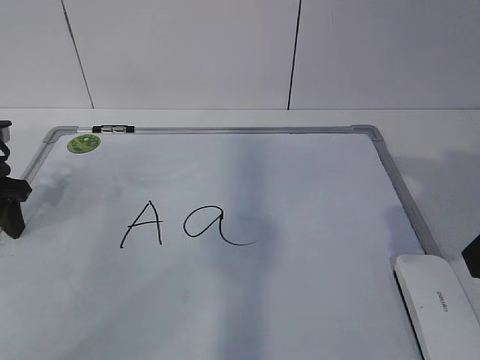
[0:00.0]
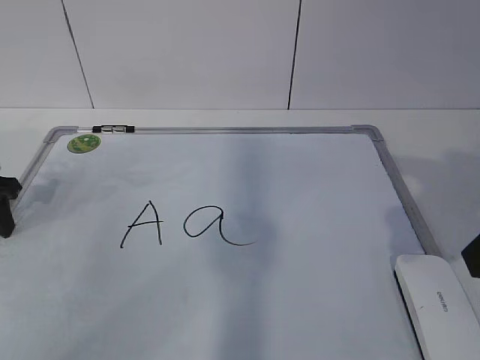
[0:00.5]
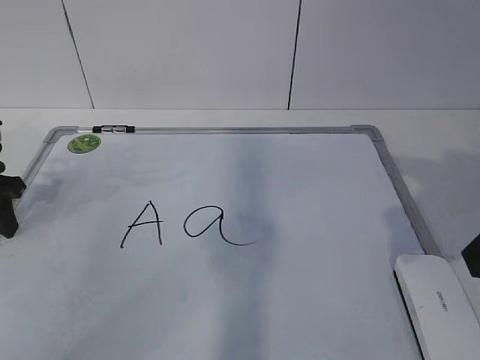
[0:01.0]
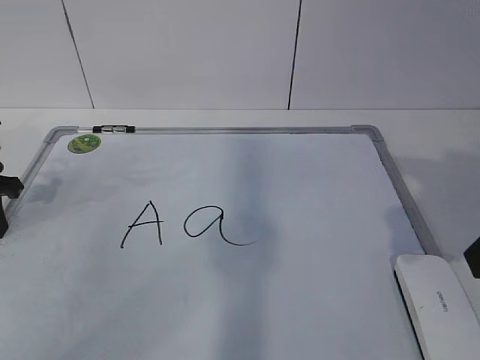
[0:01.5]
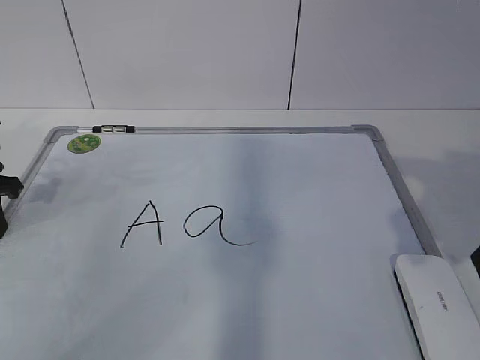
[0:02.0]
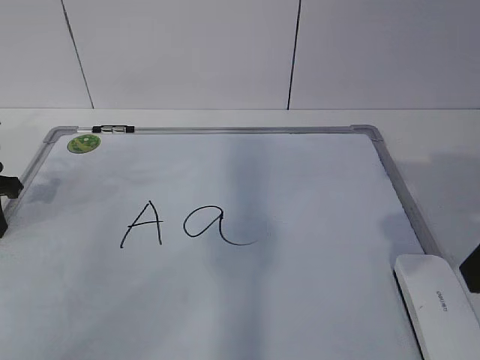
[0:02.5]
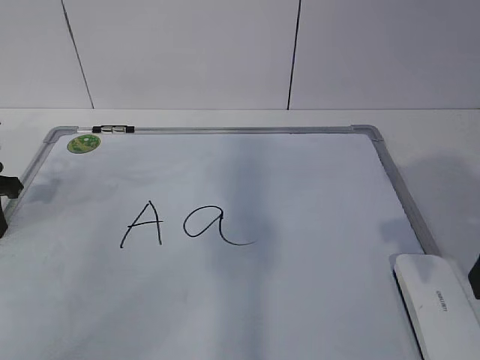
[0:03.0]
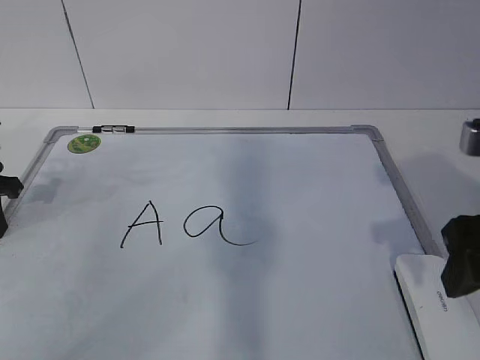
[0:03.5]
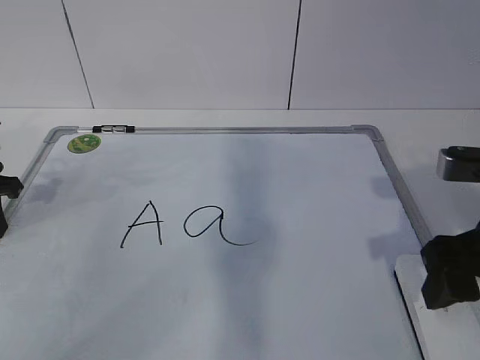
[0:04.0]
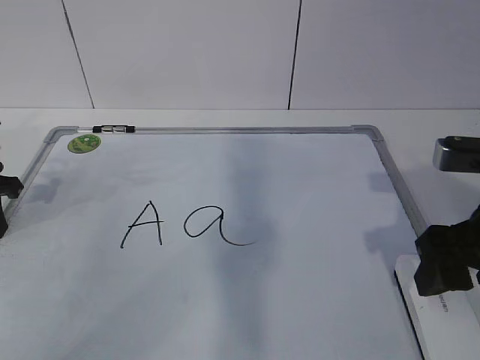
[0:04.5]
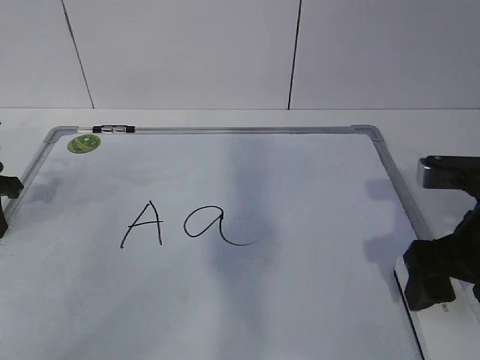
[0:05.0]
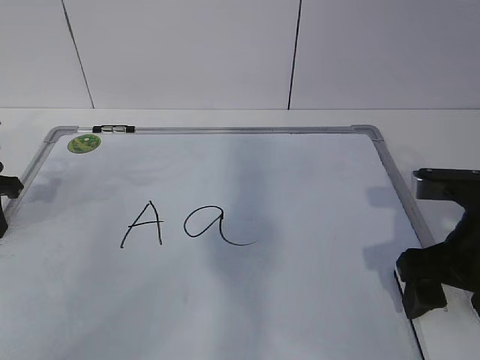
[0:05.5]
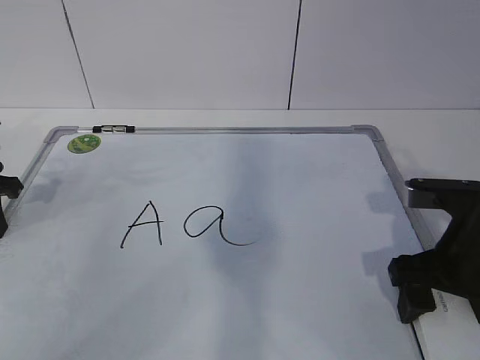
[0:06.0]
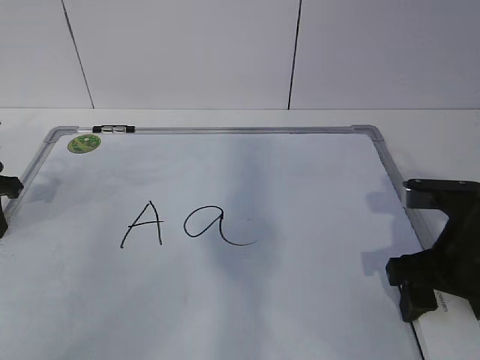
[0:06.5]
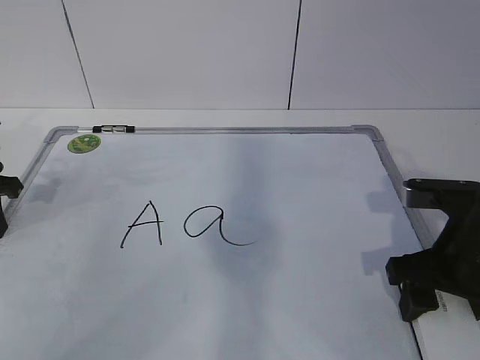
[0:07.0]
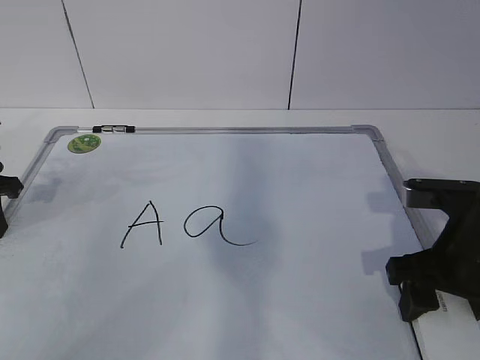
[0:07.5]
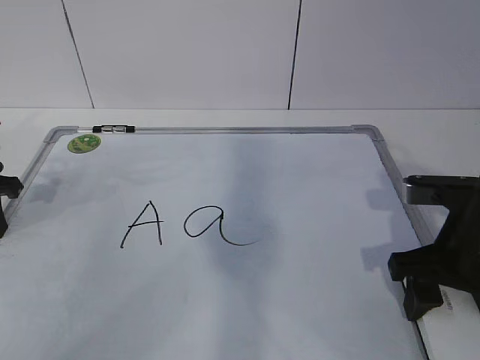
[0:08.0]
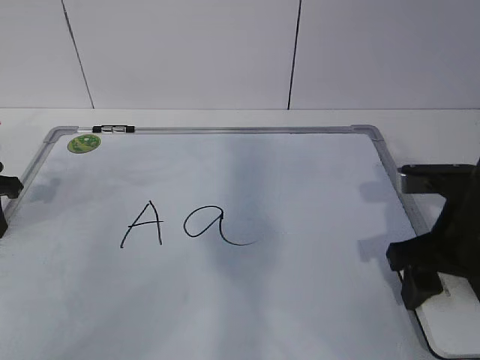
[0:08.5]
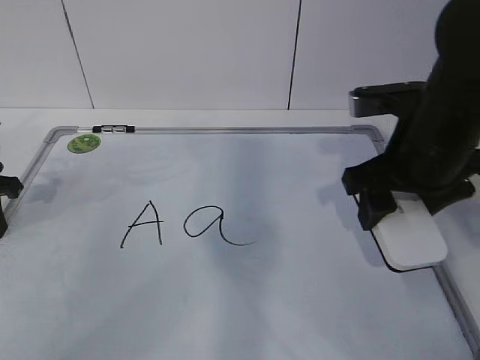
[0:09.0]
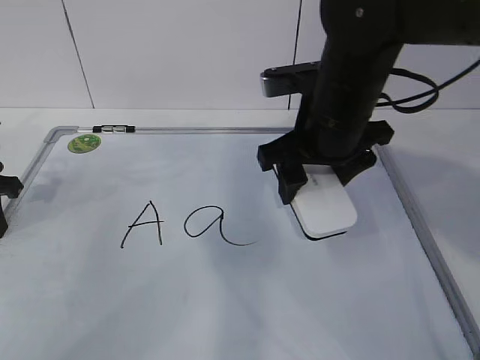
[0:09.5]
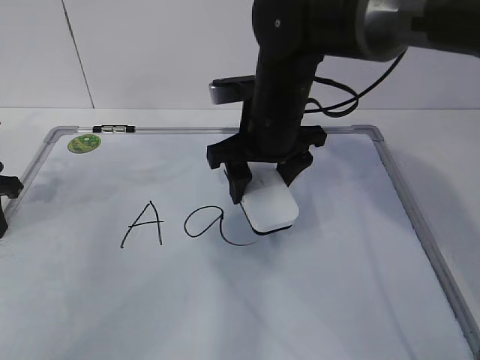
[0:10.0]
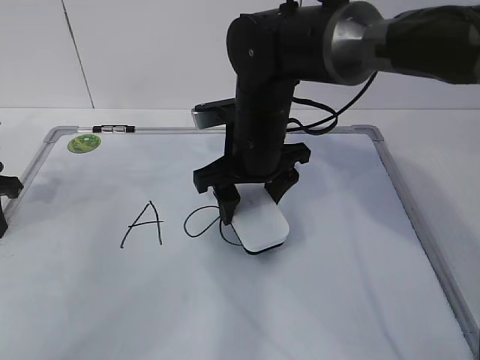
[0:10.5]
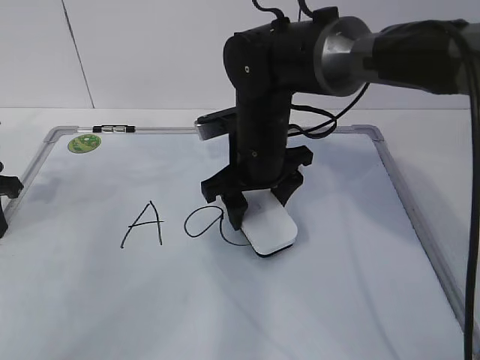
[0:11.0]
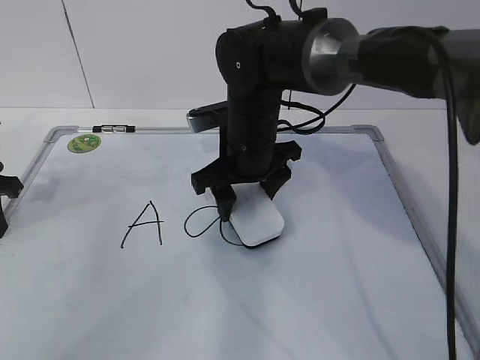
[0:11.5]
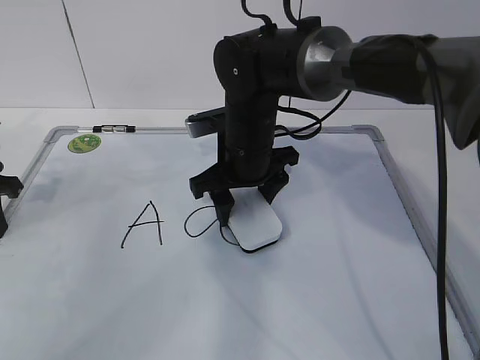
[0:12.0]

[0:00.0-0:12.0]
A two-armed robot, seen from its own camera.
Task of the whole recording: pick up the eraser on the blackboard and erase the letter "a".
Step, 0:00.5 to 0:04.5: Grab the eraser with your right hand.
0:00.0 to 0:02.0: The left gripper closes its fingers.
0:02.0 to 0:04.0: The right gripper moves downward, some 5 cm.
0:04.0 to 0:06.0: The right gripper goes roughly 5 cm downward, and opens.
0:06.0 to 0:08.0: The right gripper closes its fingers.
0:08.0 to 0:10.0: The right gripper goes about 20 cm to the left and forward.
0:10.0 to 0:12.0: The right gripper moves approximately 5 cm.

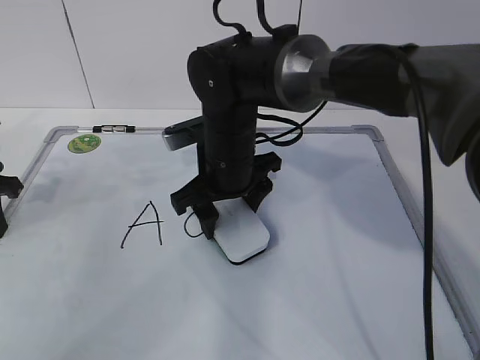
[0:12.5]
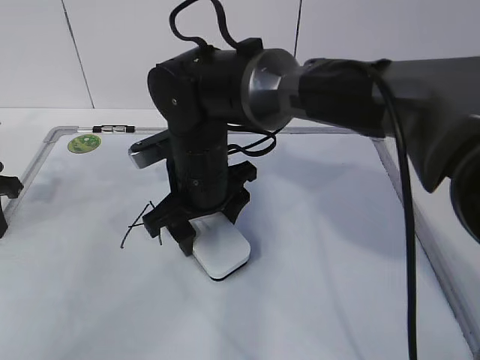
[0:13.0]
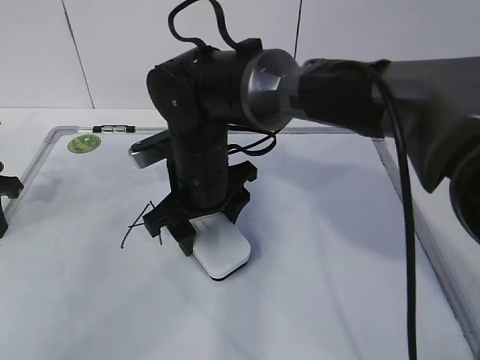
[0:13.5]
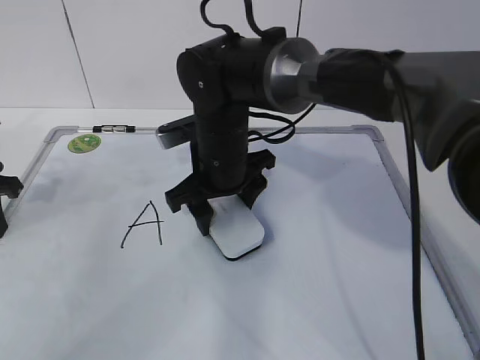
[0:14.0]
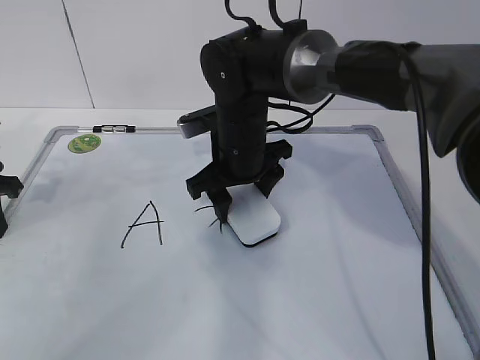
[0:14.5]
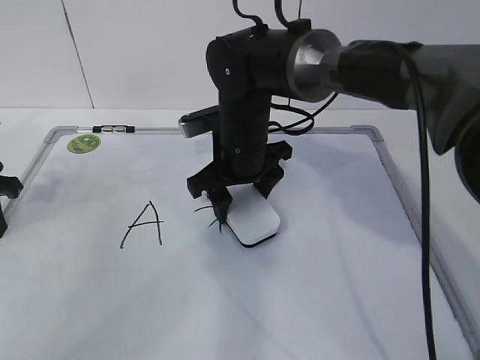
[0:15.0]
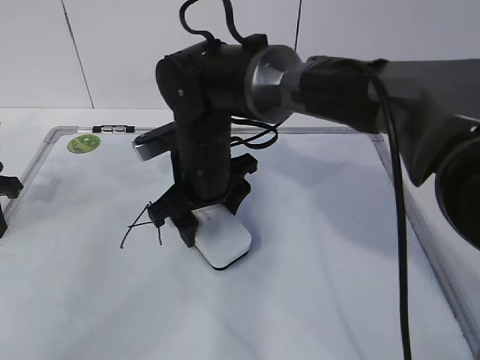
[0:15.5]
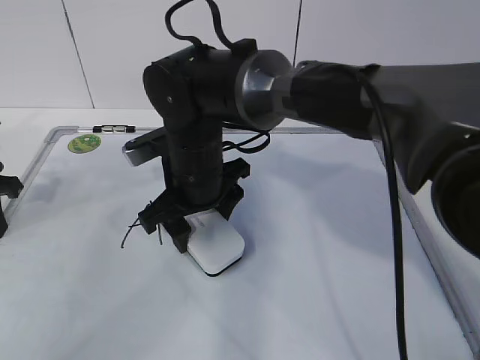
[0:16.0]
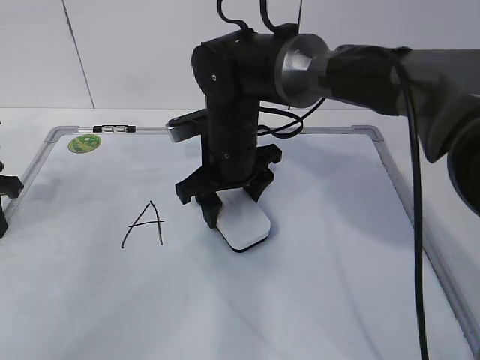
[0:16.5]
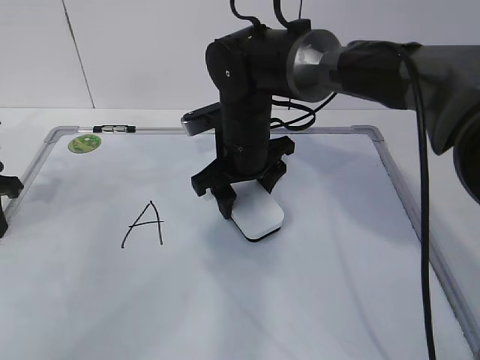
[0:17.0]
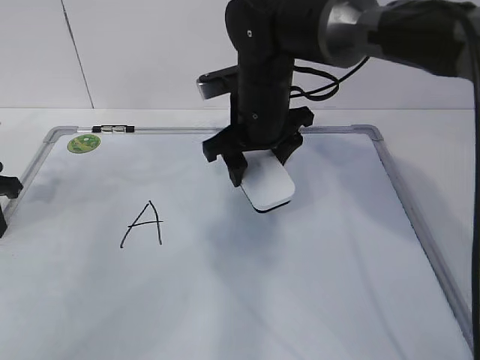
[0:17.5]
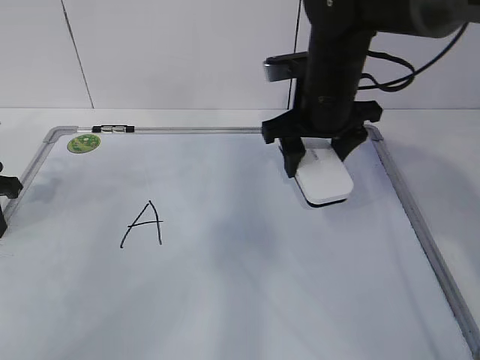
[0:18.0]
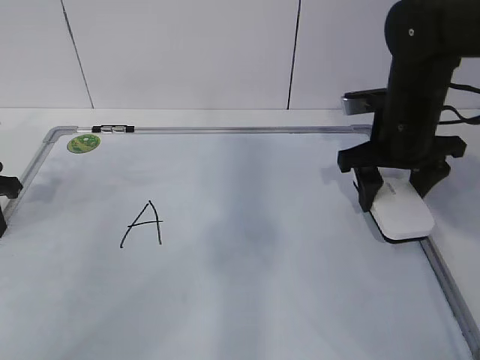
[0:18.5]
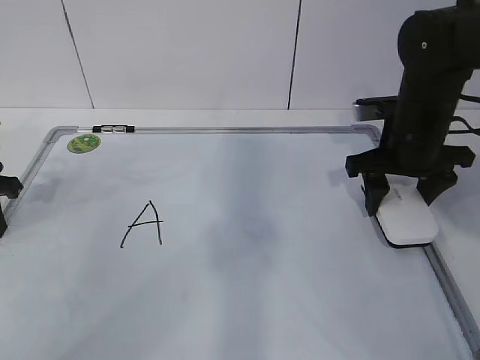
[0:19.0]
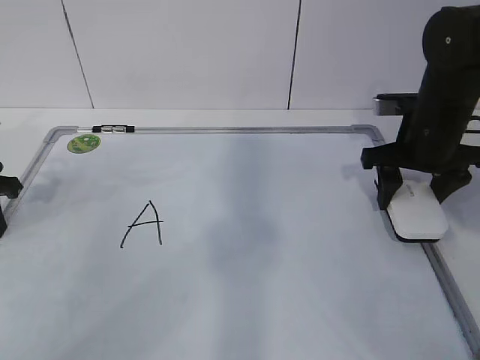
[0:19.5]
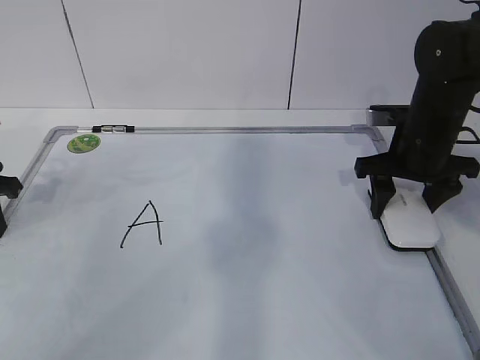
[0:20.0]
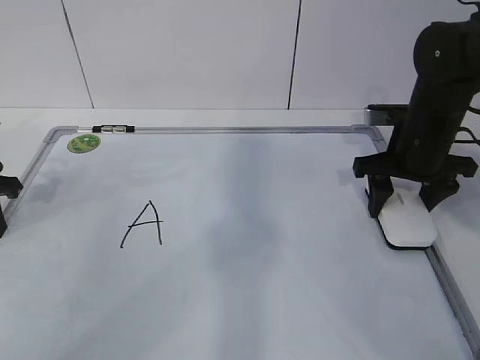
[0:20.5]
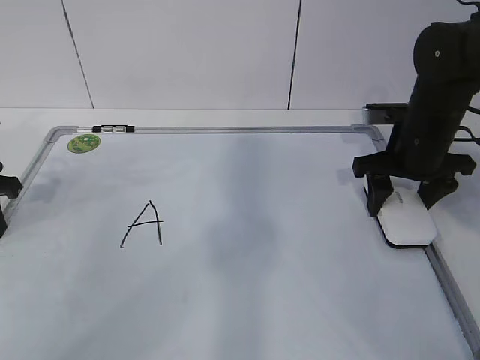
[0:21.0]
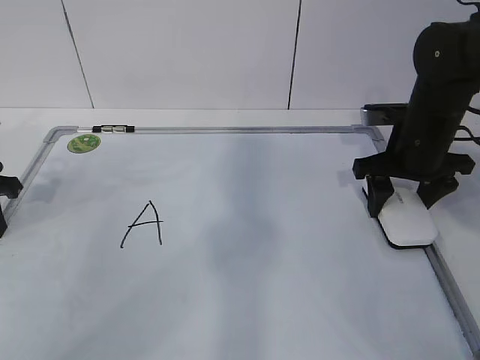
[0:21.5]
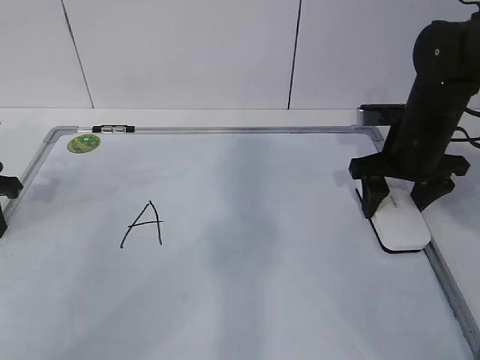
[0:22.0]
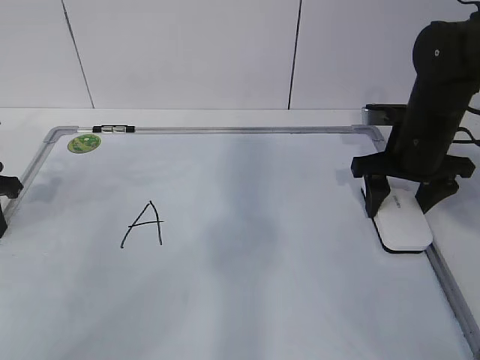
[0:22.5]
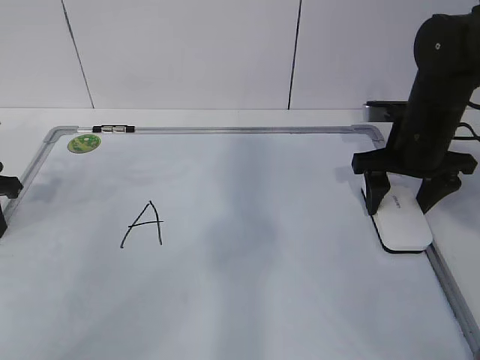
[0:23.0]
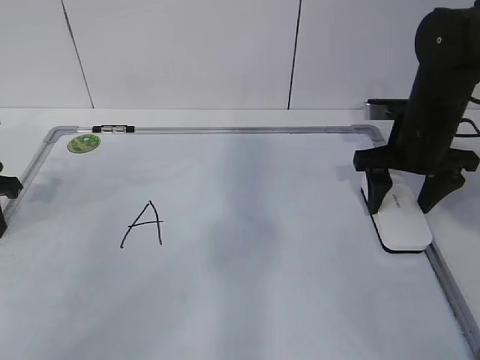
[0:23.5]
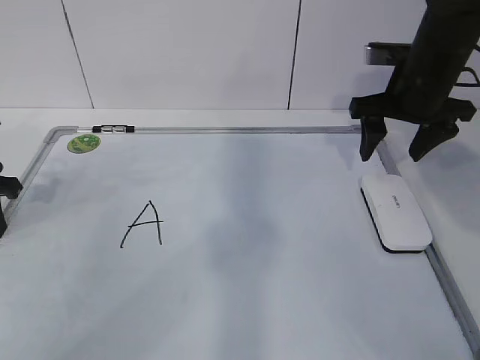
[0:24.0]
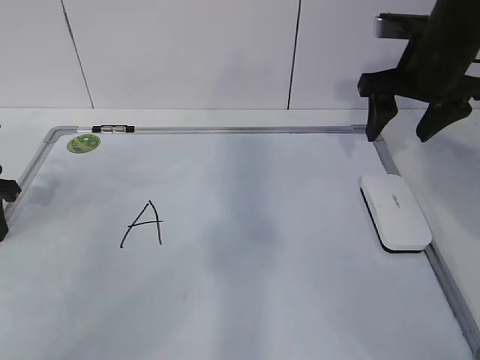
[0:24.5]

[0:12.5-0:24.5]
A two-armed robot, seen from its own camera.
Task of the whole recording: pick up the eraser on the blackboard and erase the letter "a".
Step, 0:13.0 to 0:17.5: Put down the eraser with your right hand.
0:12.5 to 0:14.5: The grippers stay close to where they were, moving slightly.
0:16.5 to 0:18.5: The right gripper heads to the right, covering roughly 20 cm.
0:18.5 to 0:22.5: The grippers move only a little.
0:22.5 to 0:24.5: The right gripper is displaced upward by about 10 cm.

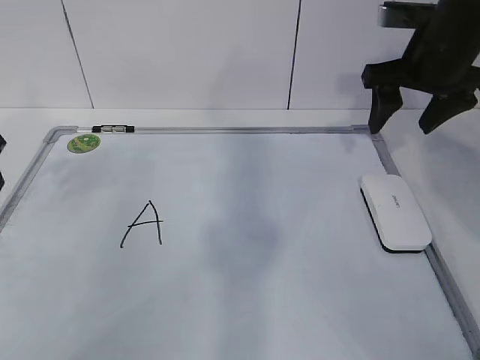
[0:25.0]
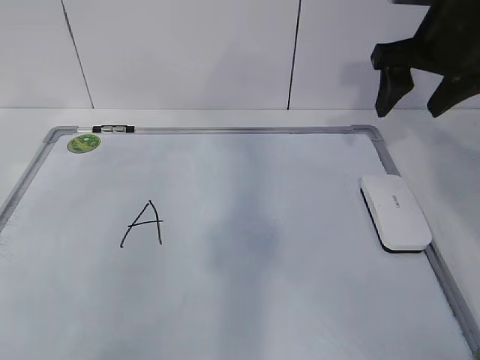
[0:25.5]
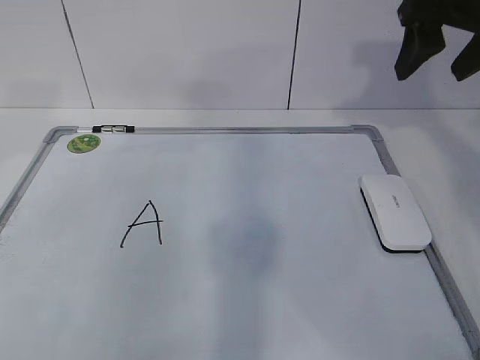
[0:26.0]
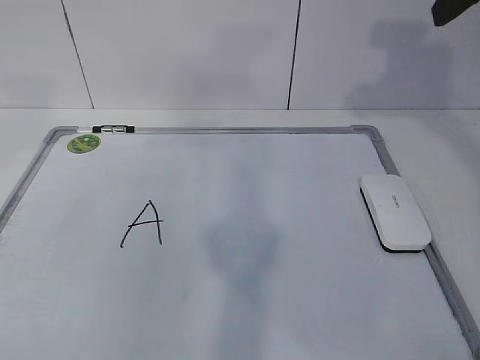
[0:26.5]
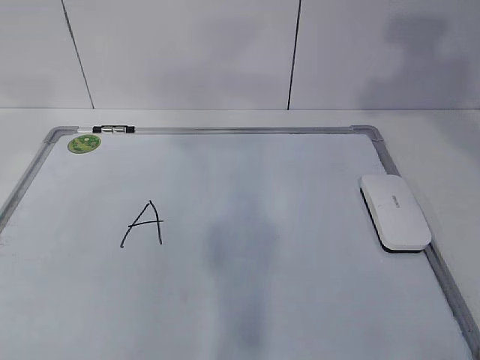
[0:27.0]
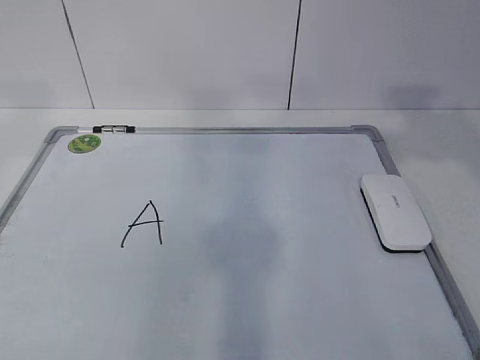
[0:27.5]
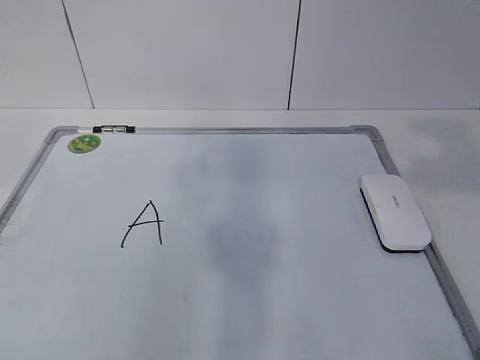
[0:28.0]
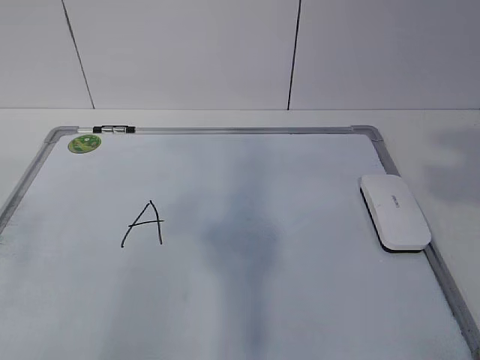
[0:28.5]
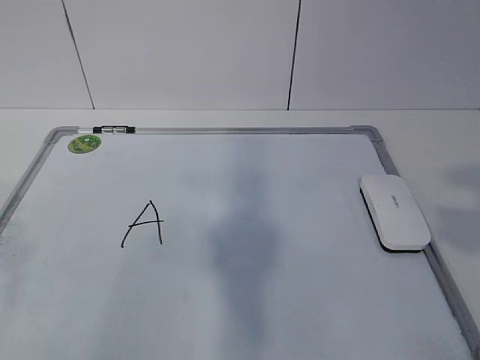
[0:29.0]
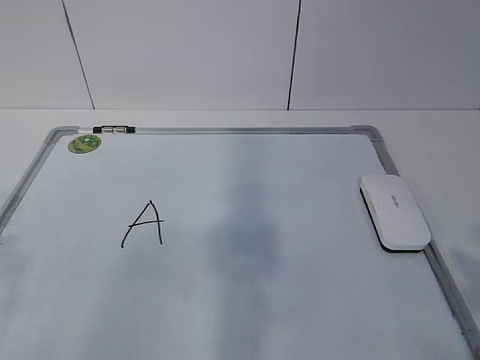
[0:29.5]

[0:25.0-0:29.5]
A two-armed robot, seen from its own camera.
Task of the whole recording: pick up the eraser on the blackboard and erase the letter "a".
0:25.0 to 0:27.0: Both grippers move upward and backward, approximately 20 cm.
